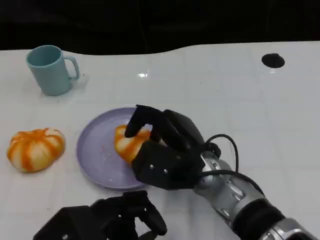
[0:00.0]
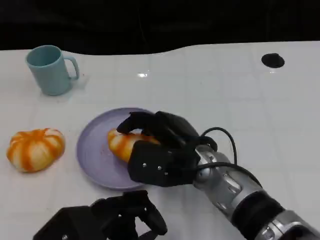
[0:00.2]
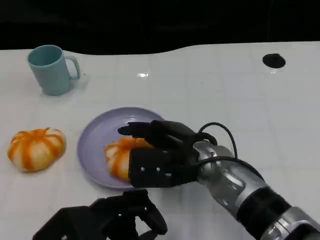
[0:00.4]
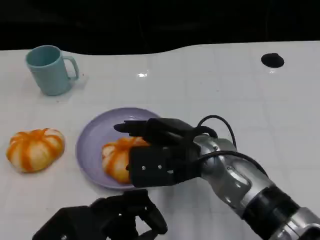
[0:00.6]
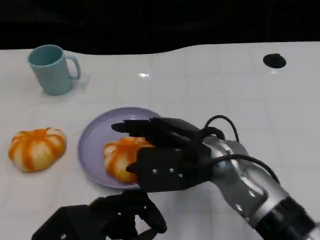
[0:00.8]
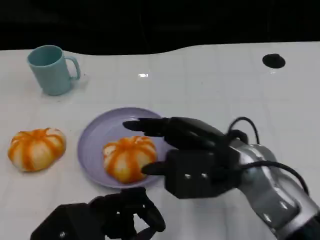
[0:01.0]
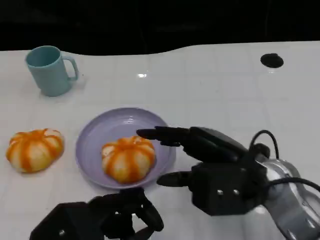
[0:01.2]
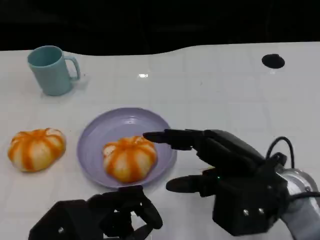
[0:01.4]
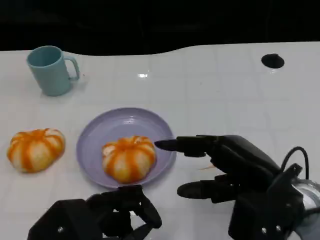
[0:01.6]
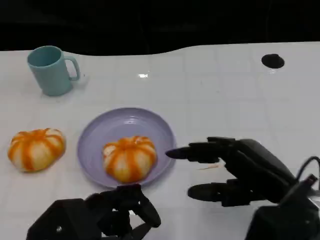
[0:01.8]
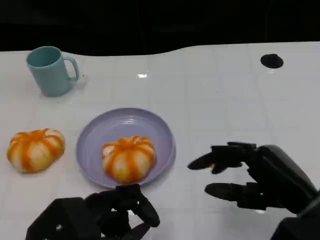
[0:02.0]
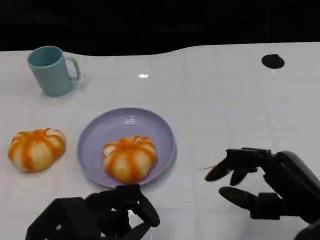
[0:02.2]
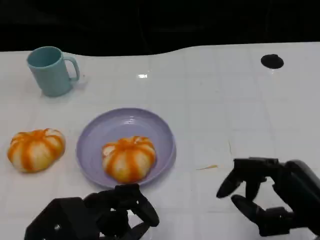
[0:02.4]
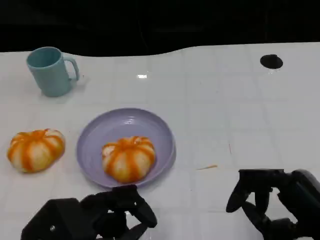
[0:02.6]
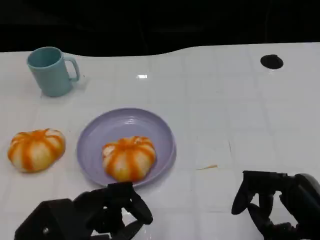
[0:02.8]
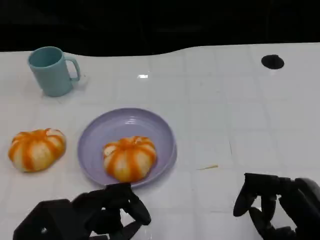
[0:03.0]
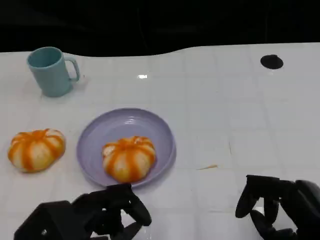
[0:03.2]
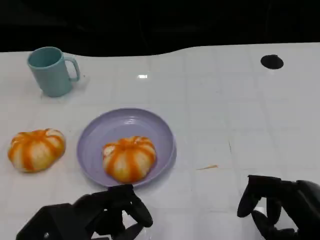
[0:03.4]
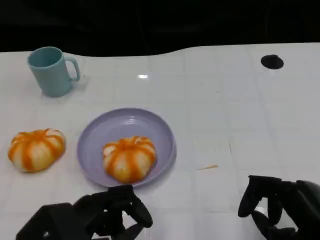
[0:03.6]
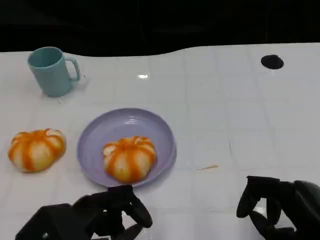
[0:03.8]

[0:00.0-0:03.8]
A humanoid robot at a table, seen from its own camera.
Task of the whole recording: Grasp the bread from the table and place it into the plate.
0:00.0 to 0:01.2: The right hand travels to the right by some 10 cm.
0:01.2 to 0:02.6: The right hand is displaced to the right and backward by some 15 cm.
0:02.6 to 0:03.8: The hands move only a little.

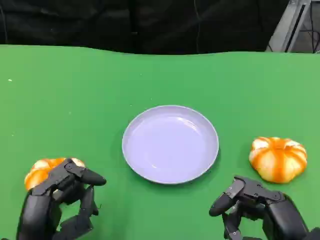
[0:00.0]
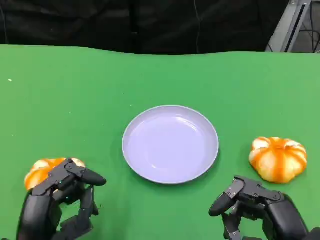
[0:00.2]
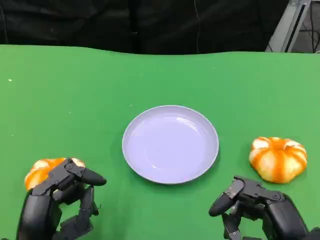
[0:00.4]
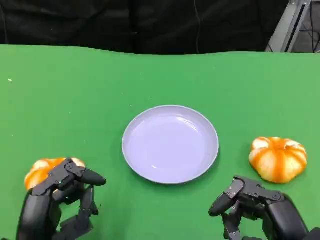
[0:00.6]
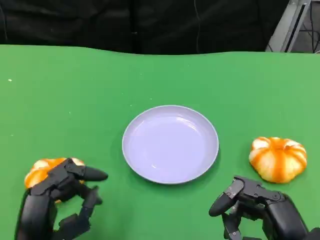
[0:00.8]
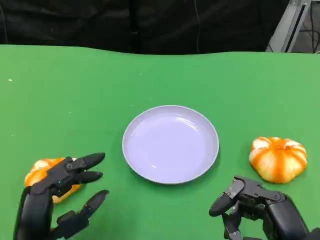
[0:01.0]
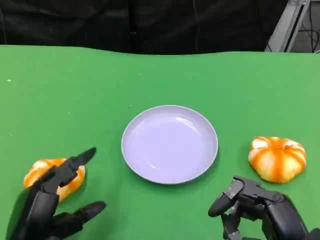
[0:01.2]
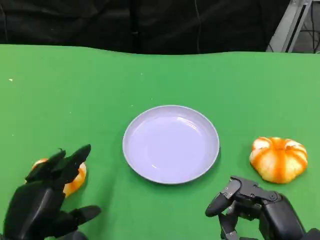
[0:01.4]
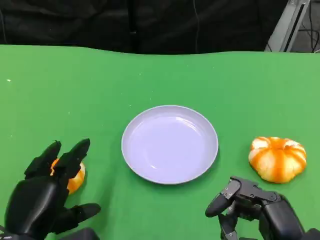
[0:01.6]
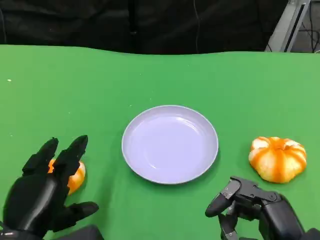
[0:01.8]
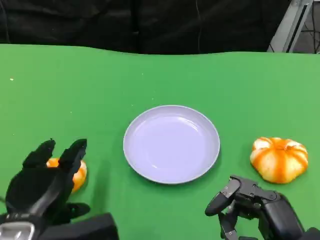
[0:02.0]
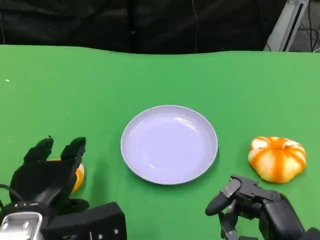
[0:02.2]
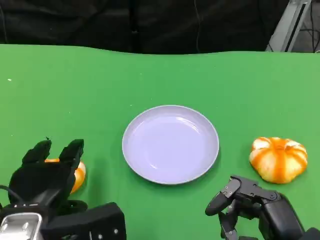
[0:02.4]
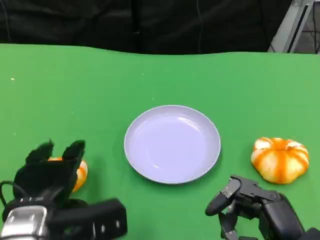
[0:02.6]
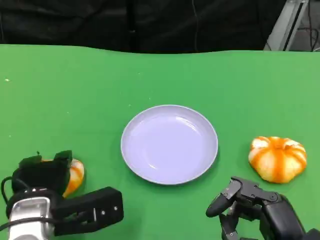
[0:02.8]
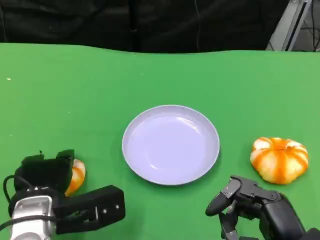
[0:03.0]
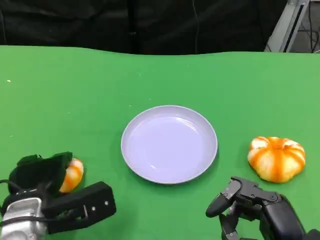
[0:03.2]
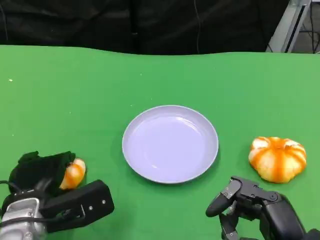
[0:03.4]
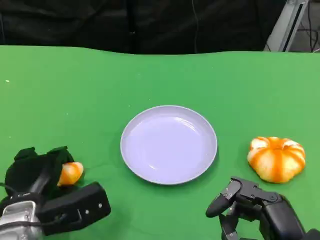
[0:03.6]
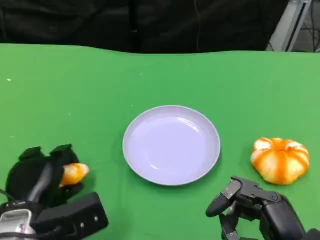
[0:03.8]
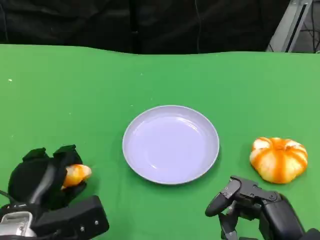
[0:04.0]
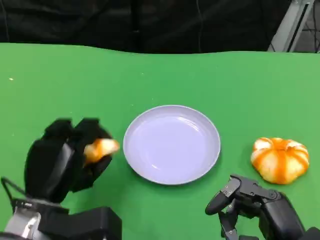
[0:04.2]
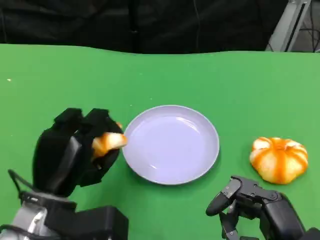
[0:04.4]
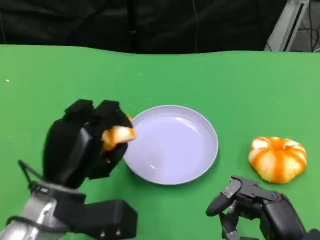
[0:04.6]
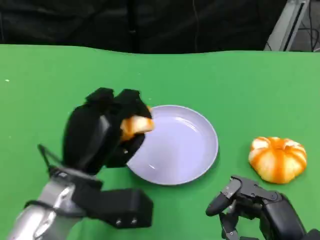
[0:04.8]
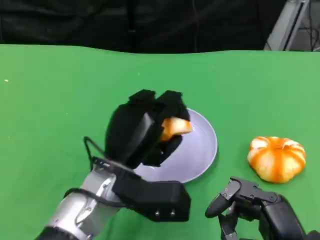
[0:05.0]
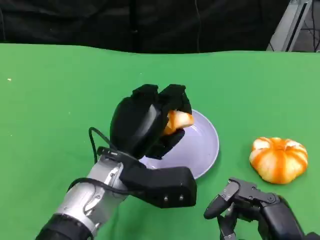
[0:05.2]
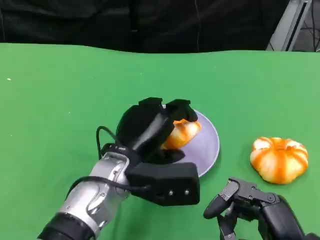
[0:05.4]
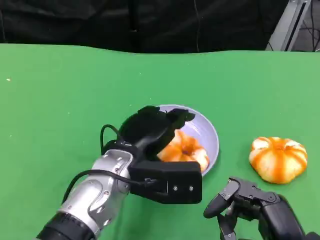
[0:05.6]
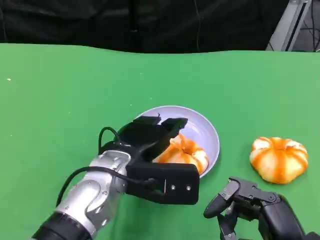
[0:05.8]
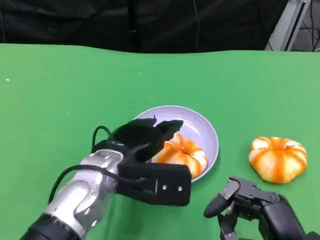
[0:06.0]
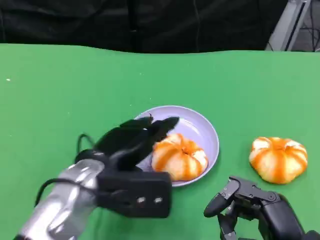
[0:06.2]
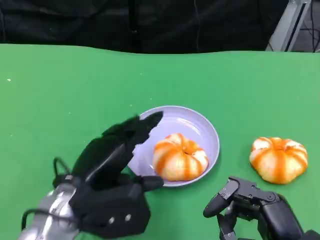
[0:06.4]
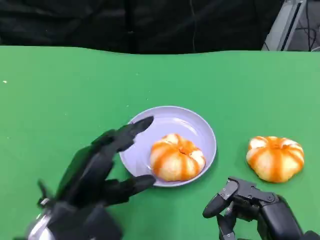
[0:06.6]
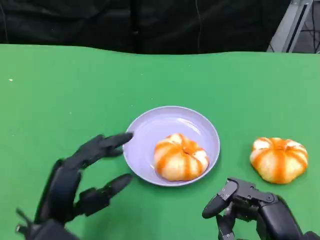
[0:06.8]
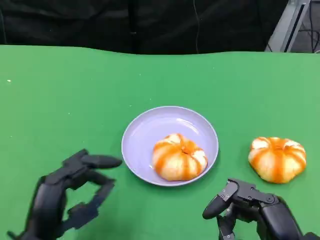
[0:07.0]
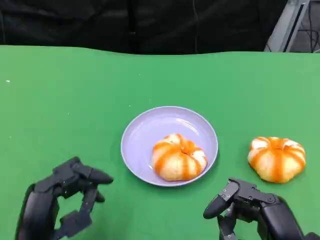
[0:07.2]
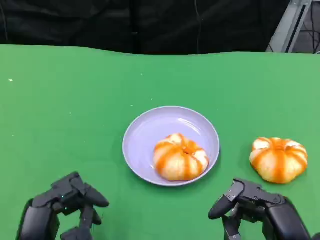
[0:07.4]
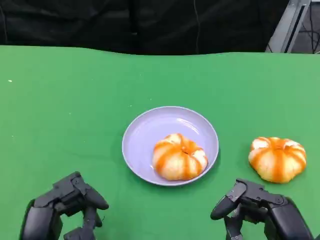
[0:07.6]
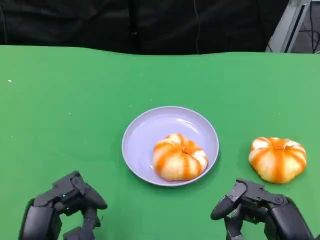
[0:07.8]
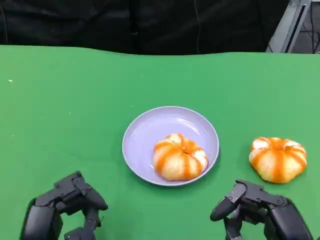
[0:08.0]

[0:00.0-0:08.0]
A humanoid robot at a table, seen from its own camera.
Task of the whole recording: Grasp the bread from the table and place it into the plate.
0:01.6 to 0:03.2: The left hand travels forward by about 5 cm.
0:03.2 to 0:04.8: The left hand moves to the right and upward, roughly 10 cm.
0:06.4 to 0:08.0: The left hand moves backward, approximately 10 cm.

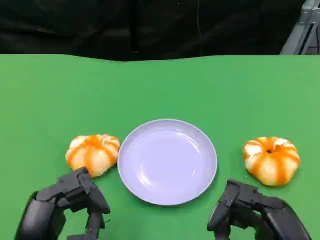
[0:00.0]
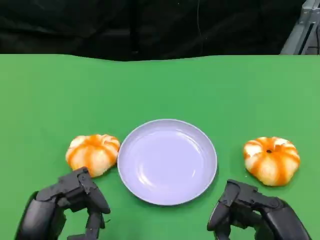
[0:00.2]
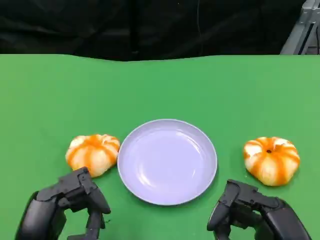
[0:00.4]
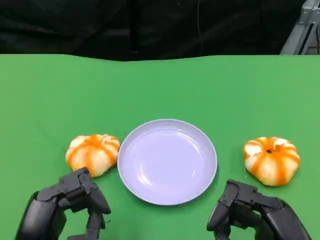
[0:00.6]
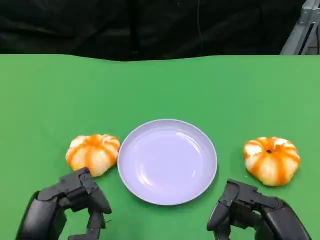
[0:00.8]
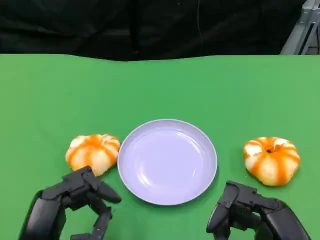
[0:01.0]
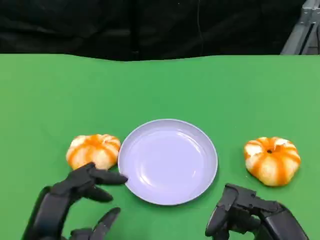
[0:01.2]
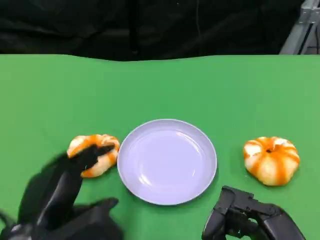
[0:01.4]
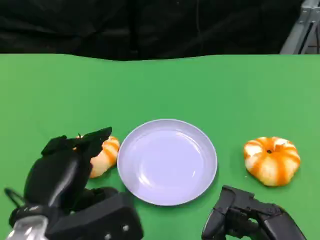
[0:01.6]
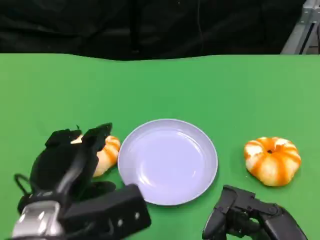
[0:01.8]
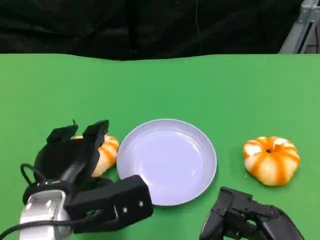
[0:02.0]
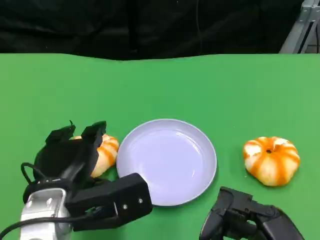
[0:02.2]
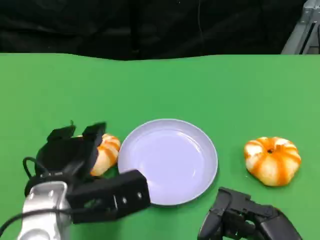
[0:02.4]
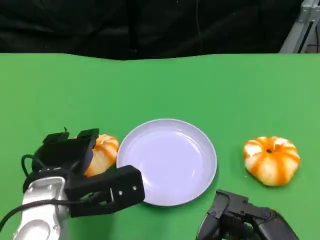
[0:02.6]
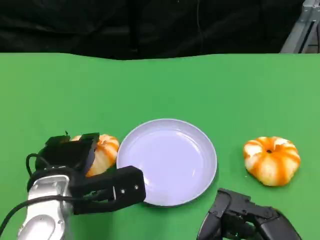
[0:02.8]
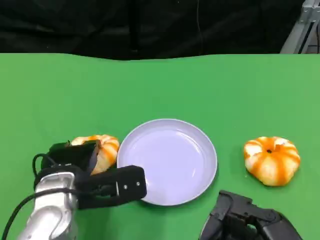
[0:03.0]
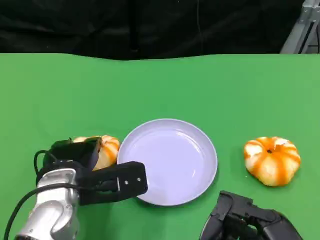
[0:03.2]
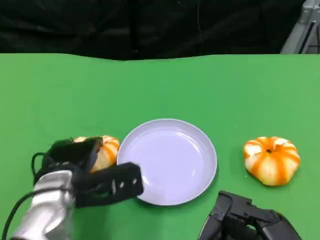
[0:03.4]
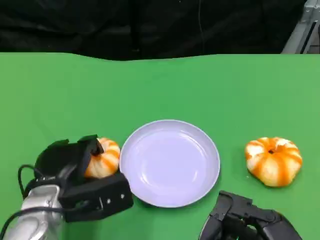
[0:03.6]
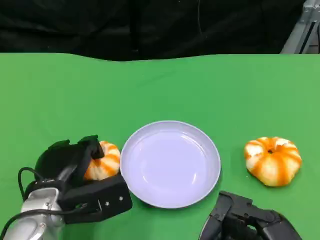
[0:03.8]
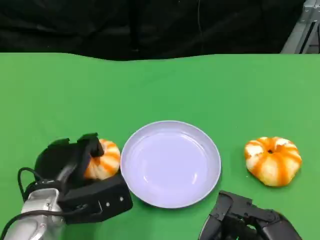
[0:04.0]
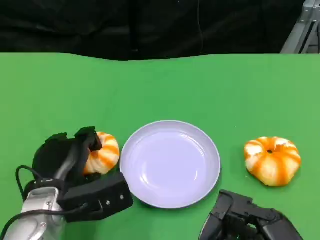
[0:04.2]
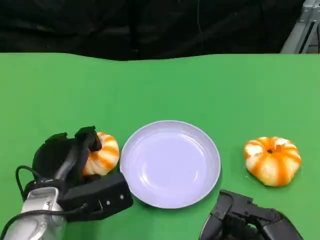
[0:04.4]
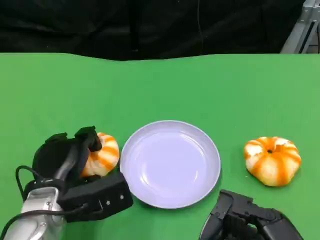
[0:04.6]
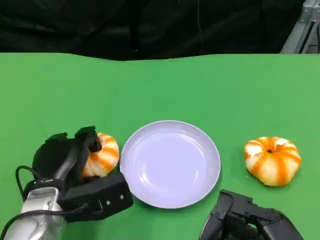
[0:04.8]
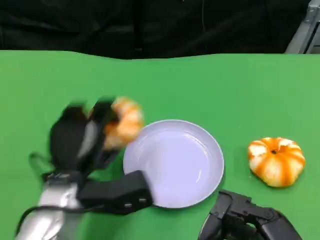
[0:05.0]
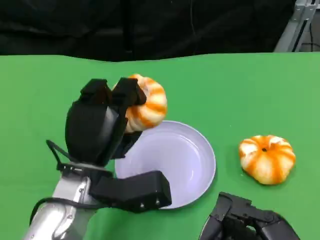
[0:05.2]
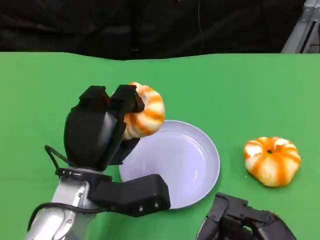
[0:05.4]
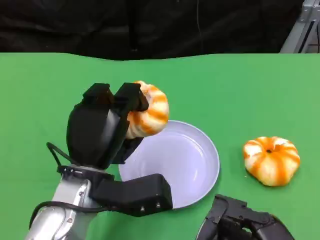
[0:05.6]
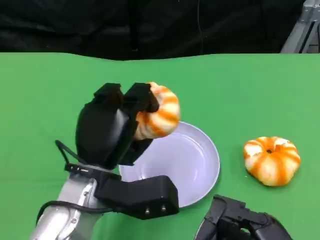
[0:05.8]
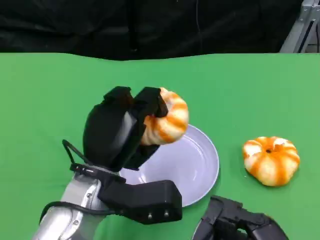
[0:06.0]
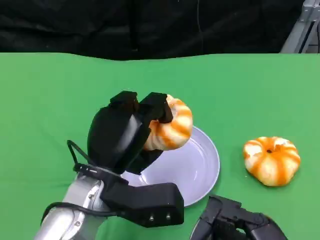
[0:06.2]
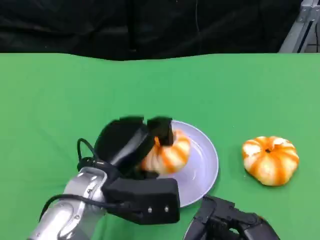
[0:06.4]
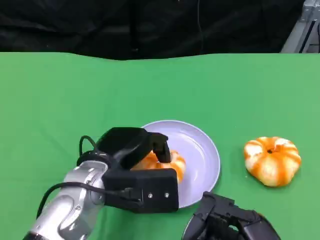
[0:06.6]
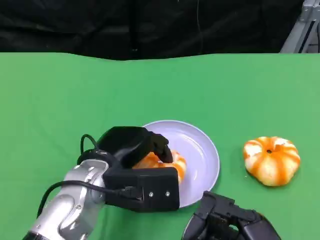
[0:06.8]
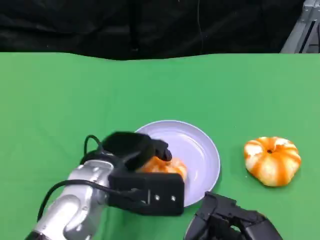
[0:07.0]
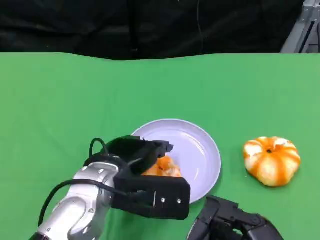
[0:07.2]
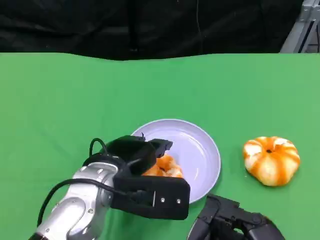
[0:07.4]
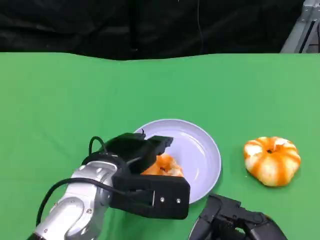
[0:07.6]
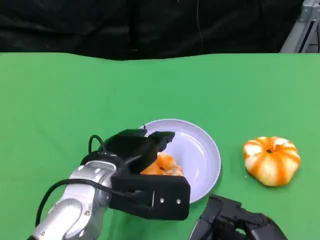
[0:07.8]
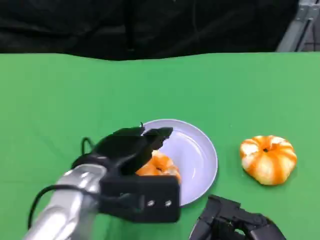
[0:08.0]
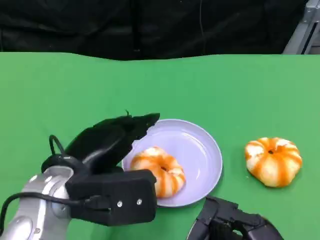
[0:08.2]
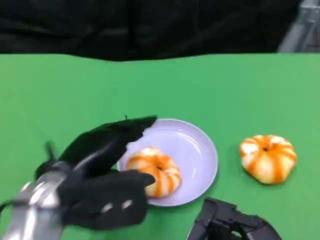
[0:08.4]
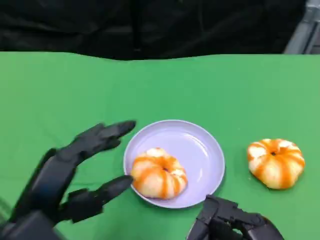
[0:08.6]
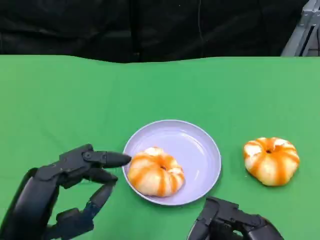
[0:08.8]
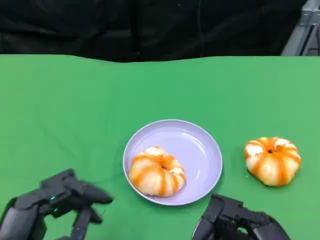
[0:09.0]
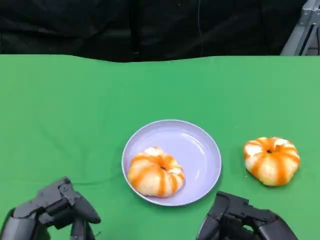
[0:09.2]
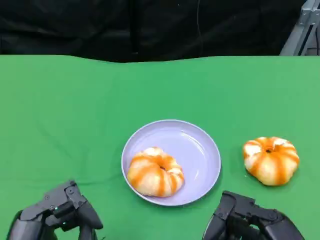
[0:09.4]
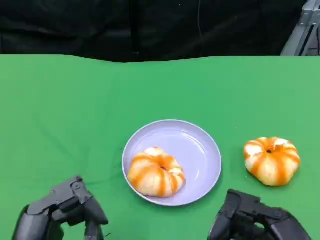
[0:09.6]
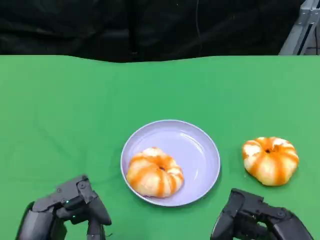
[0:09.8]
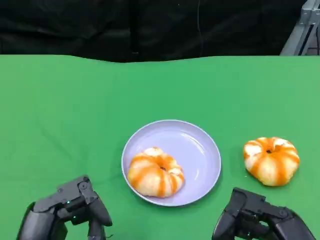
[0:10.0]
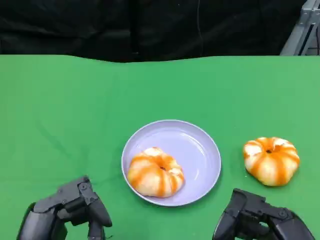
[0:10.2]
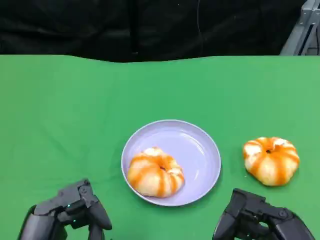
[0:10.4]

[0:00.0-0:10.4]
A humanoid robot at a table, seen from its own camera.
Task of the whole recording: Grasp the bread from the table and place it into the plate.
0:00.0 to 0:01.4: The left hand moves about 5 cm.
0:01.4 to 0:03.0: The left hand is displaced forward by some 10 cm.
0:04.4 to 0:06.0: The left hand heads to the right and upward, covering about 10 cm.
0:07.4 to 0:09.0: The left hand heads backward and to the left, covering some 20 cm.
0:09.0 to 0:10.4: The hands make only small movements.
